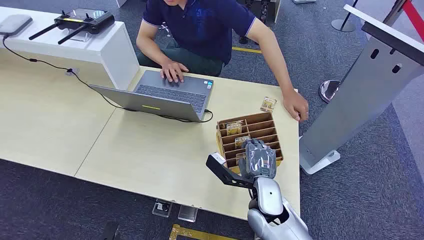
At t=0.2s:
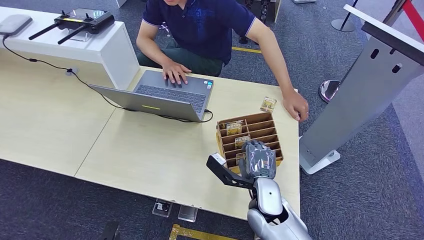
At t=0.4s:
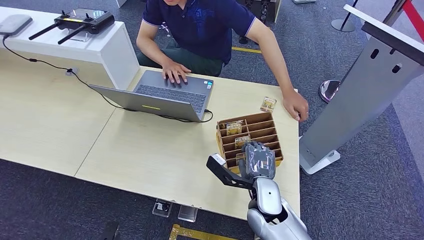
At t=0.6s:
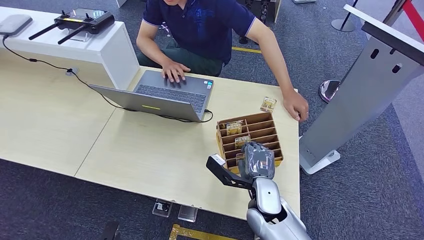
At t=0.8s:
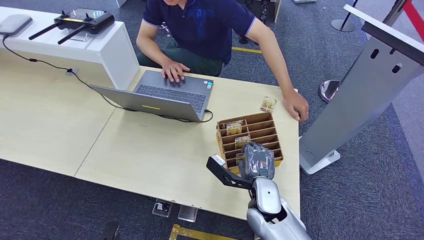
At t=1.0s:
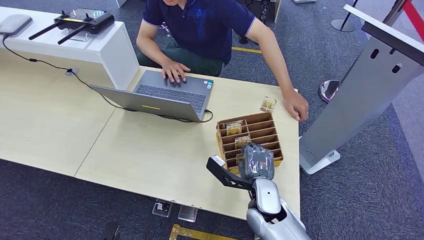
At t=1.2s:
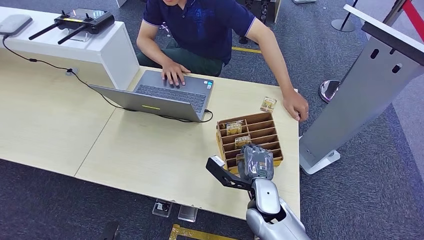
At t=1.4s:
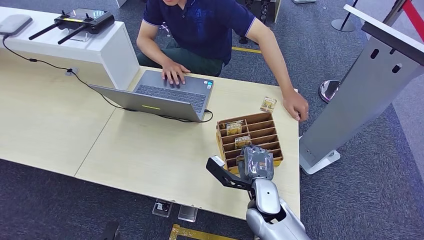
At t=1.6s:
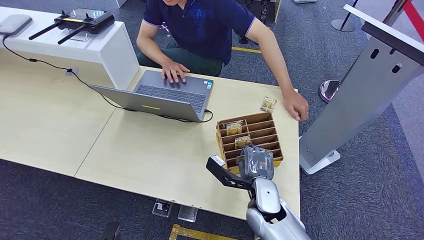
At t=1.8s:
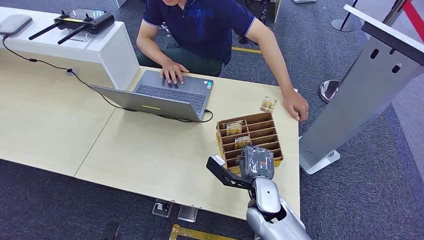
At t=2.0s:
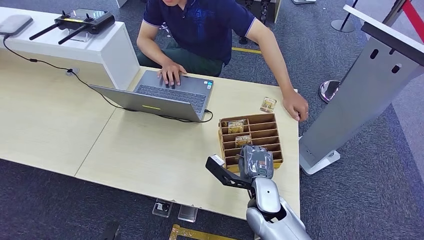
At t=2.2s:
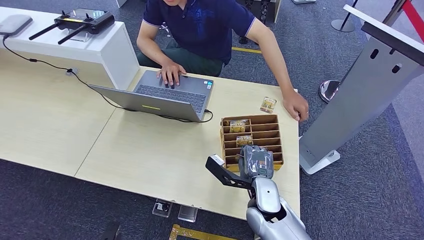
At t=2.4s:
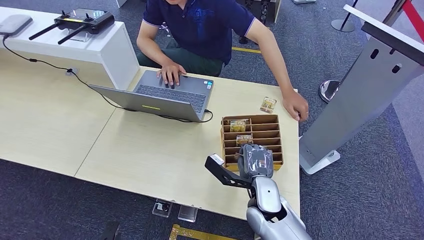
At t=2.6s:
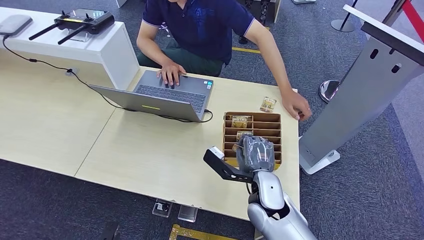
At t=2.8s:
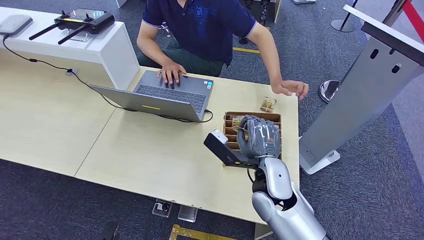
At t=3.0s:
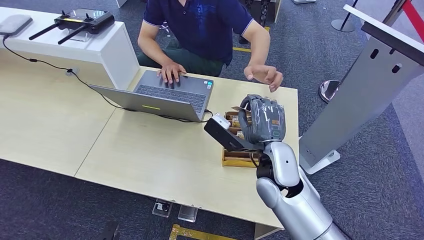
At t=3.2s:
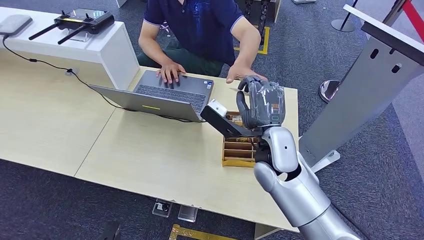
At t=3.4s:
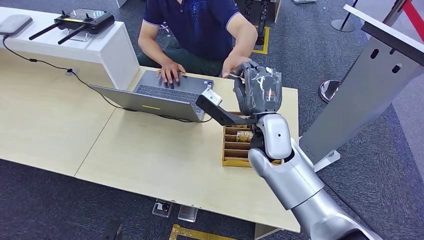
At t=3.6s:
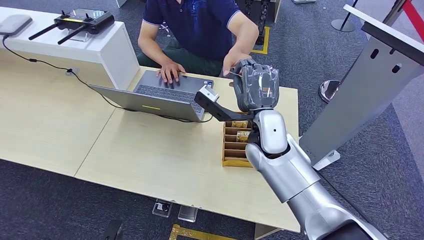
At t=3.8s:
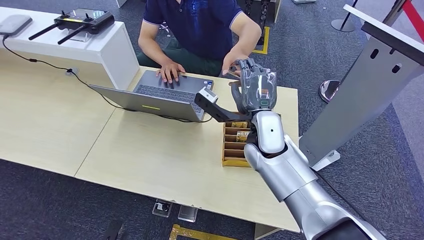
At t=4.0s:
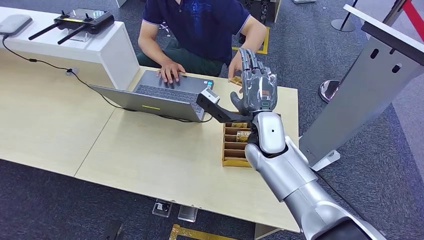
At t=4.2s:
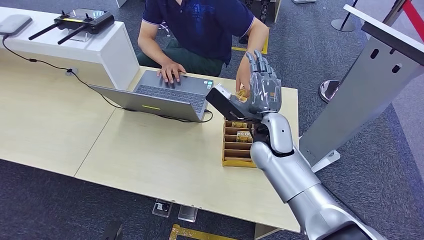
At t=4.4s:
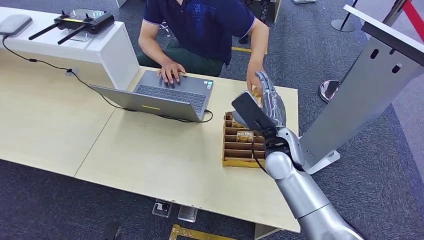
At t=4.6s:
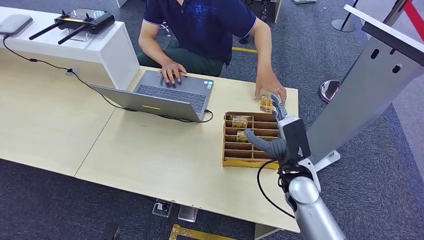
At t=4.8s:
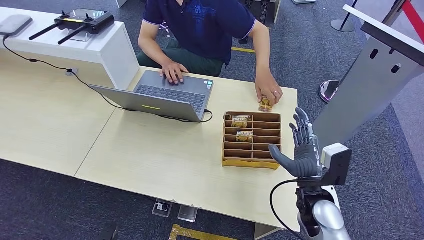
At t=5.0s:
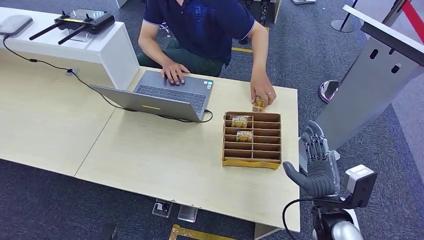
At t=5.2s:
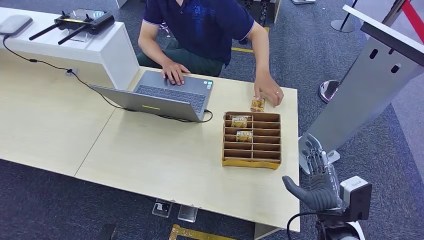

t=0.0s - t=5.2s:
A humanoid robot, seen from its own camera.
Task of the whole recording: Pick up the card and hand it over to the target person.
Step, t=0.0s - t=2.4s: Pick up the key card from the card box.
Step, t=2.6s - t=5.2s: Hand the key card to the target.
t=1.8s - t=3.4s: The right hand is displaced upward and forward by about 20 cm.
t=3.4s - t=5.2s: The right hand heads to the right, backward and downward, covering about 30 cm.
